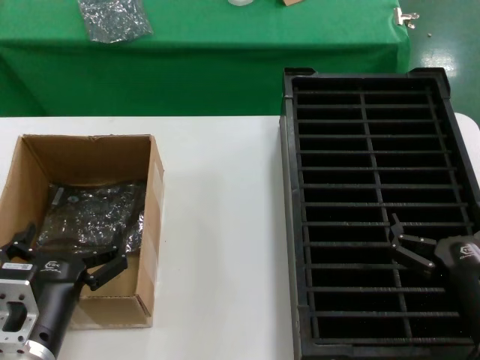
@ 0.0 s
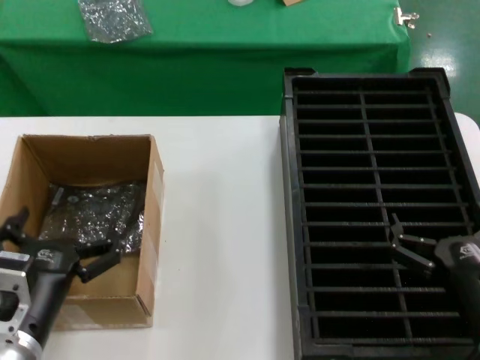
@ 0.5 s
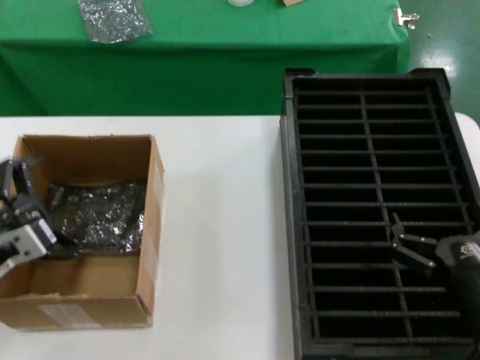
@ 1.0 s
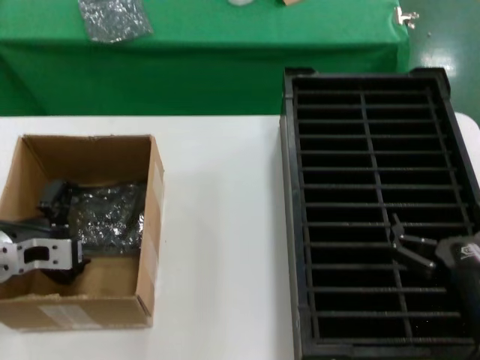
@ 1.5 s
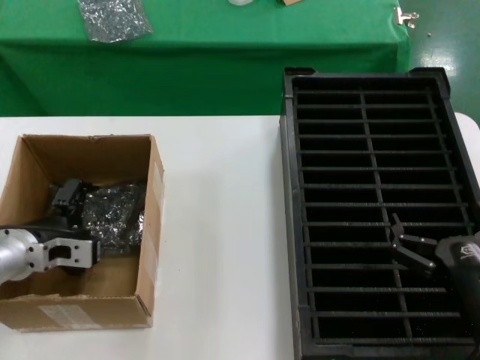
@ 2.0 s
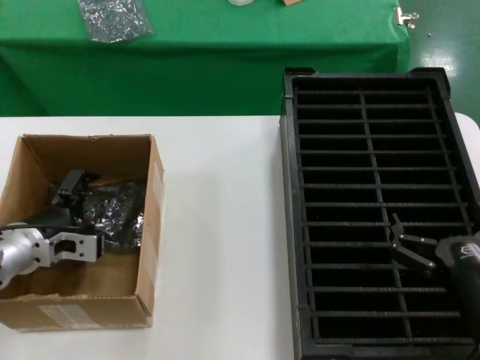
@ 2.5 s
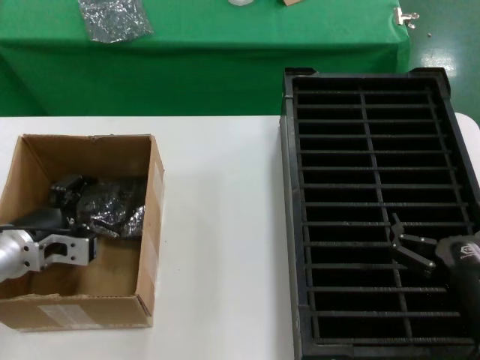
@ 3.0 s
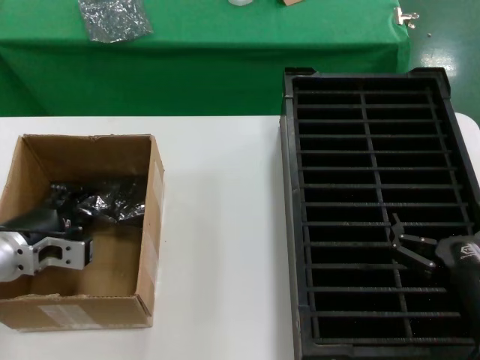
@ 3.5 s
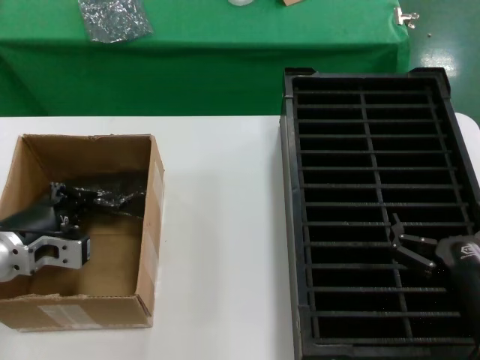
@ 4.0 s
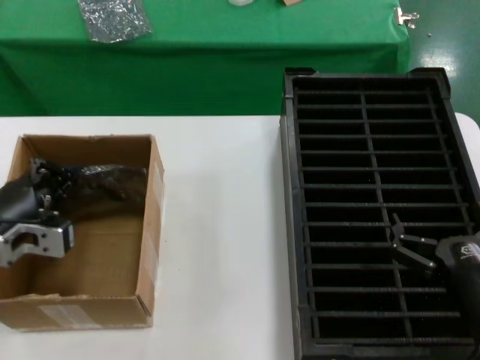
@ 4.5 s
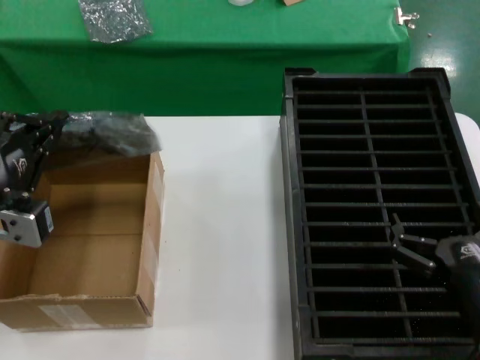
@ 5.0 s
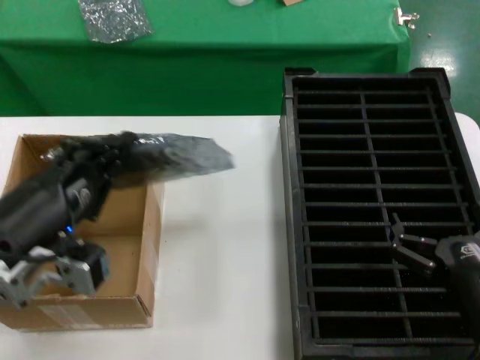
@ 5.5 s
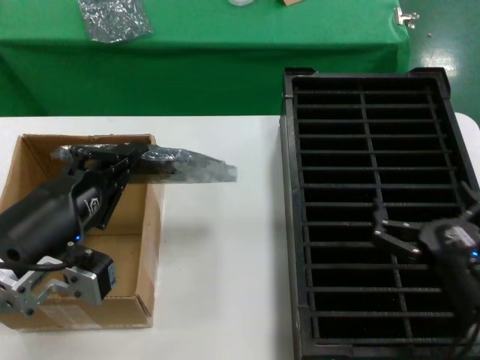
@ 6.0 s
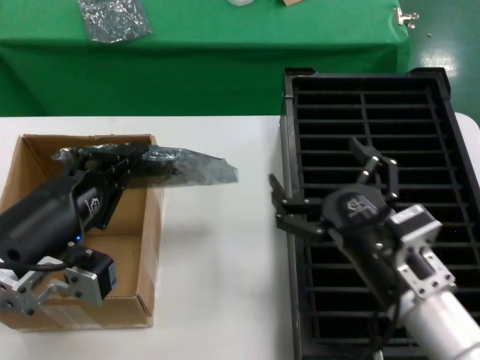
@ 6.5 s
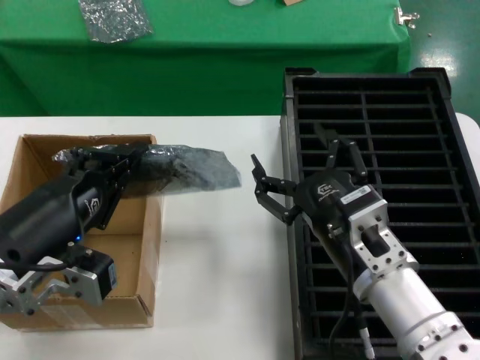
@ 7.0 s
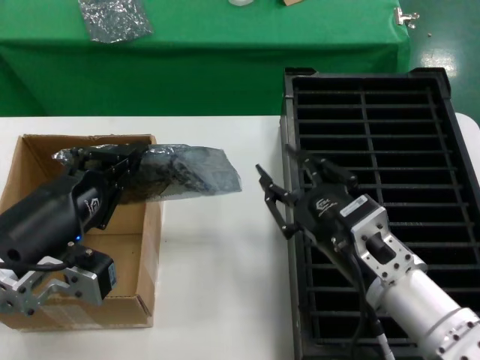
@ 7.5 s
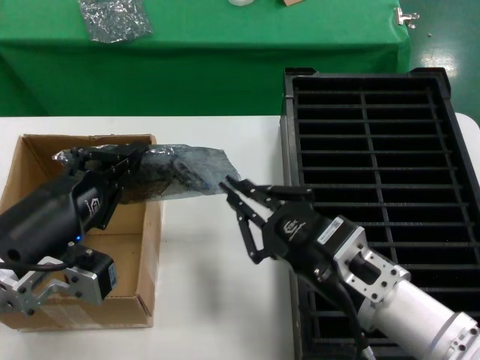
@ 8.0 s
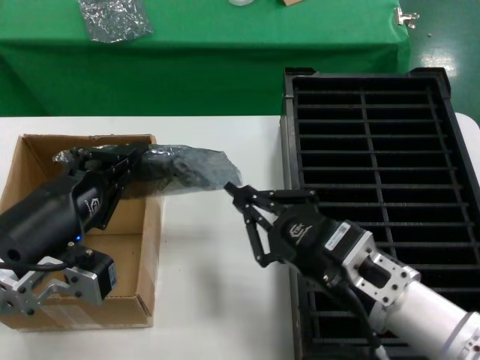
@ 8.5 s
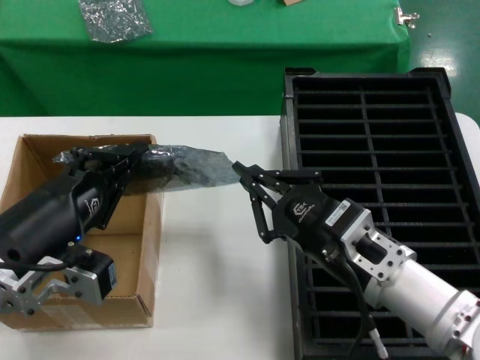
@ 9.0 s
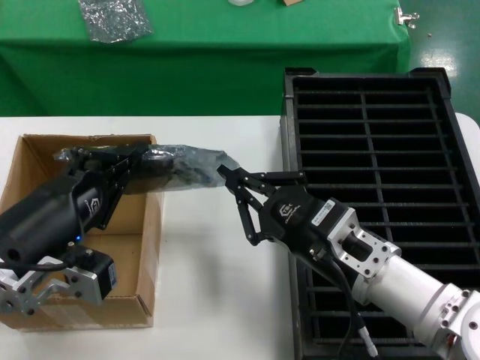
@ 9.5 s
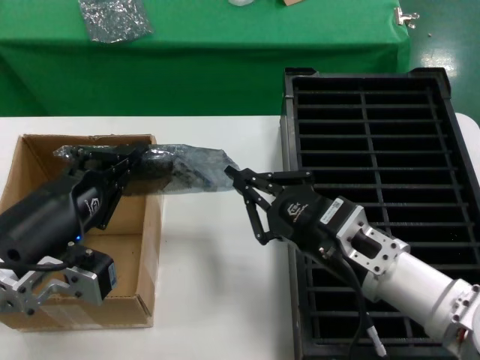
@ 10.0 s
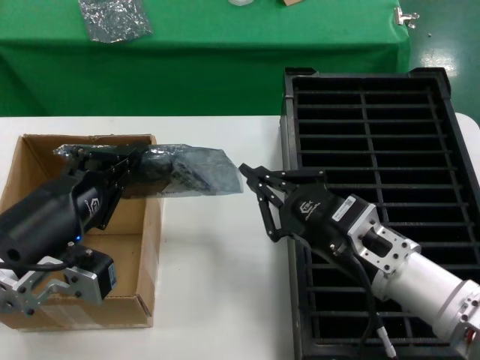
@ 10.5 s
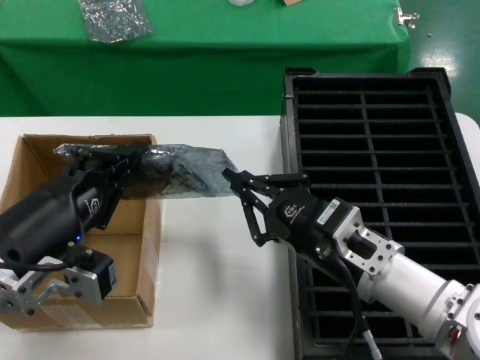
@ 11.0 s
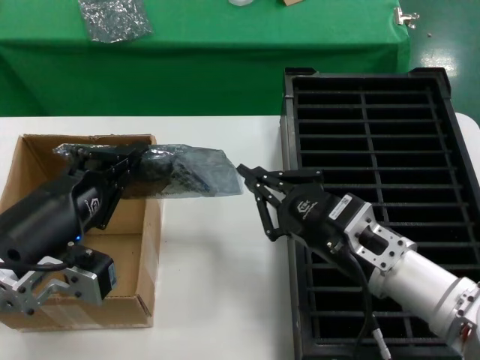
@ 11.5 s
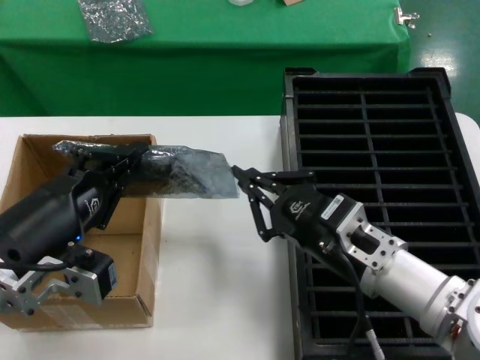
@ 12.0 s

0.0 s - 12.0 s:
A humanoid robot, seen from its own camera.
Task of the whole recording: take out graphics card from box remove packaging put into black container.
Step, 0.0 s - 4.0 s: Grasp the bag.
Step, 4.5 s - 6.0 s: Lift the bag.
0.0 s - 2.0 s: The left hand moves forward and to the left, some 20 cm.
2.0 s - 4.0 s: There are only small adjustments of the hands.
4.0 s - 6.0 s: The left hand heads backward, upward and to the right, covering roughly 20 cm.
6.0 s - 8.0 s: The right hand shifts about 10 cm to the left and upward.
8.0 s - 12.0 s: The hands make only small movements.

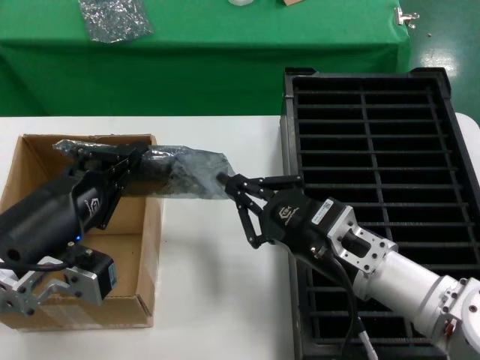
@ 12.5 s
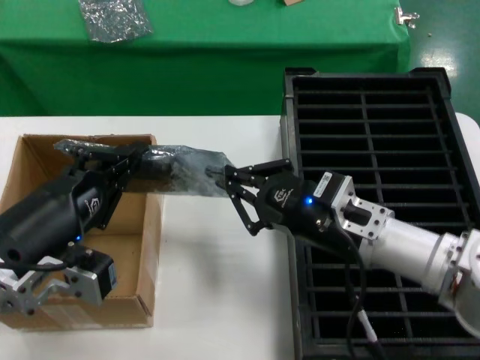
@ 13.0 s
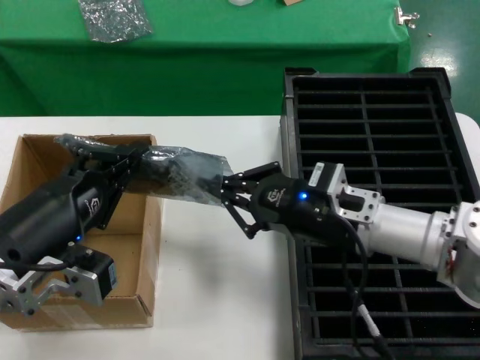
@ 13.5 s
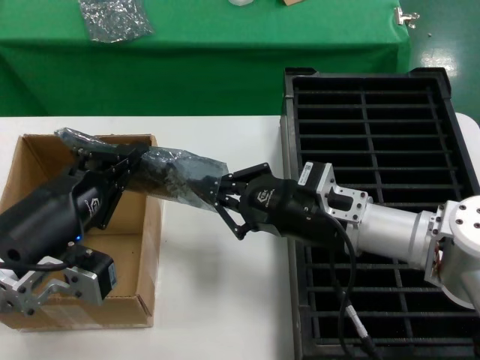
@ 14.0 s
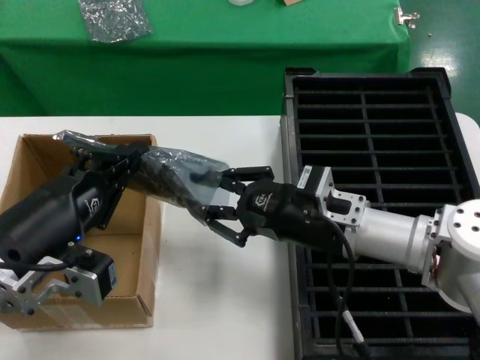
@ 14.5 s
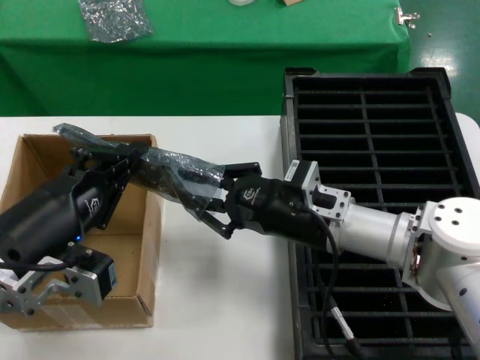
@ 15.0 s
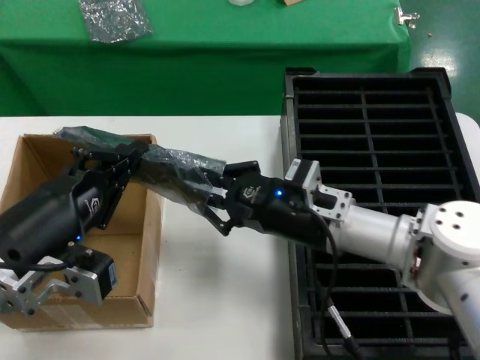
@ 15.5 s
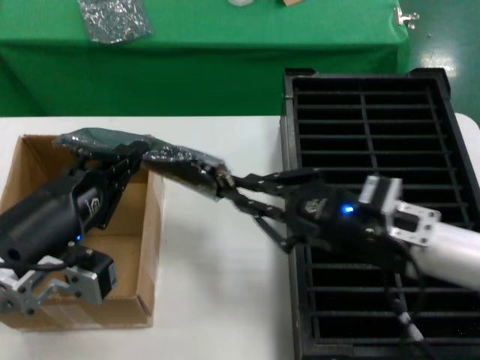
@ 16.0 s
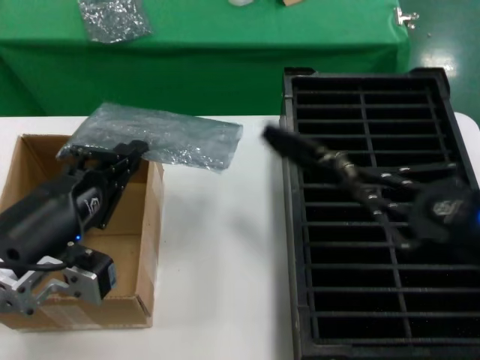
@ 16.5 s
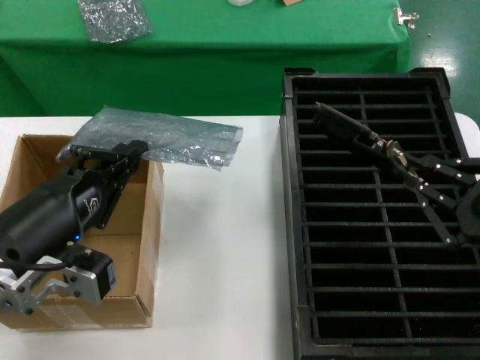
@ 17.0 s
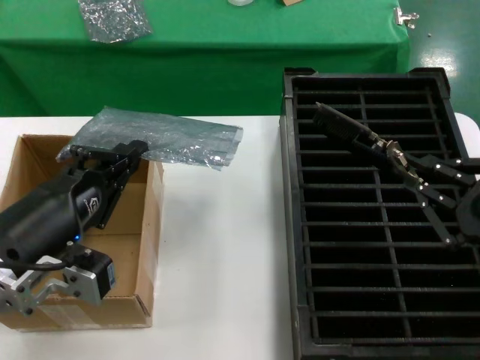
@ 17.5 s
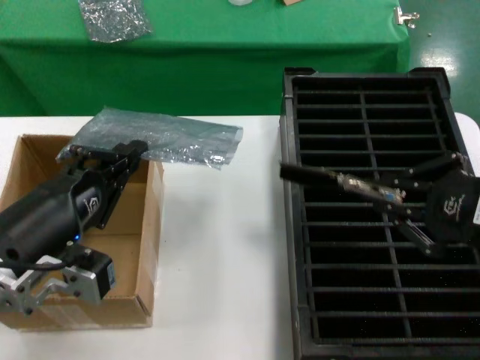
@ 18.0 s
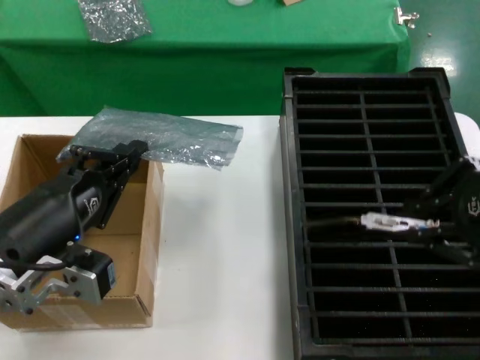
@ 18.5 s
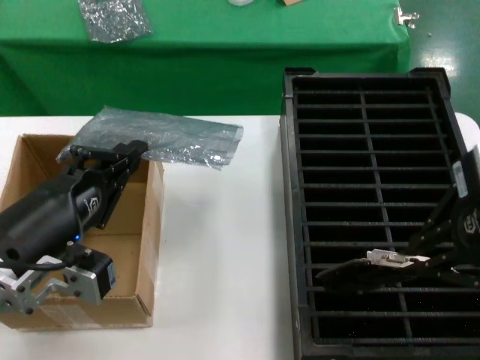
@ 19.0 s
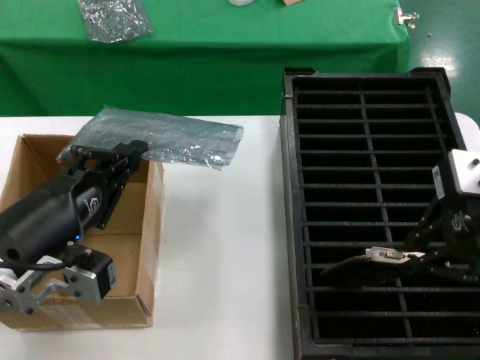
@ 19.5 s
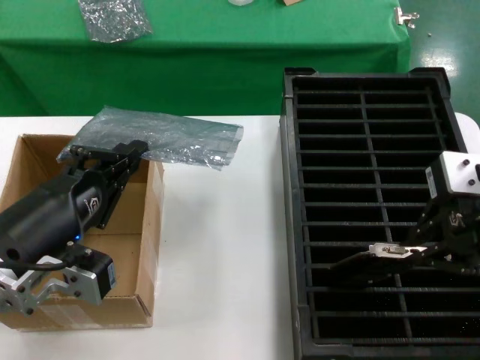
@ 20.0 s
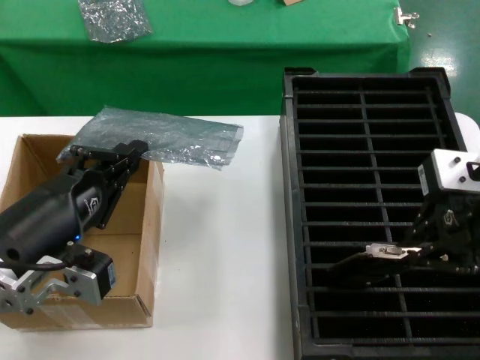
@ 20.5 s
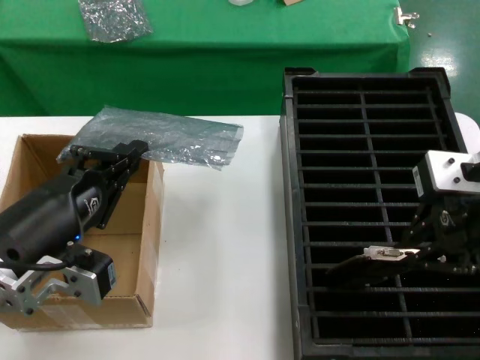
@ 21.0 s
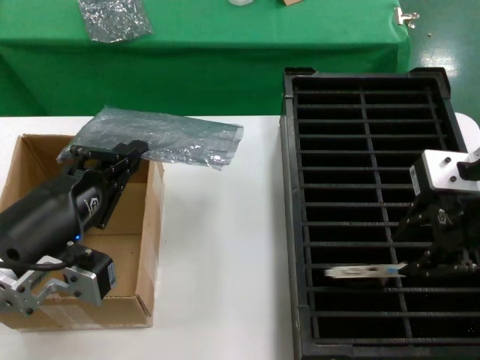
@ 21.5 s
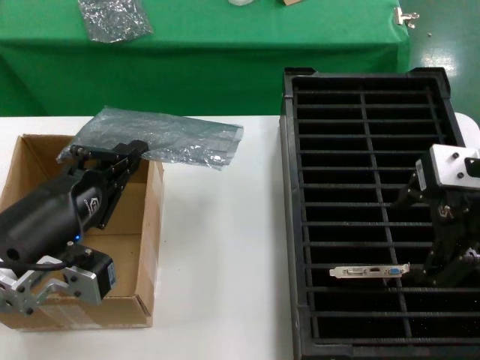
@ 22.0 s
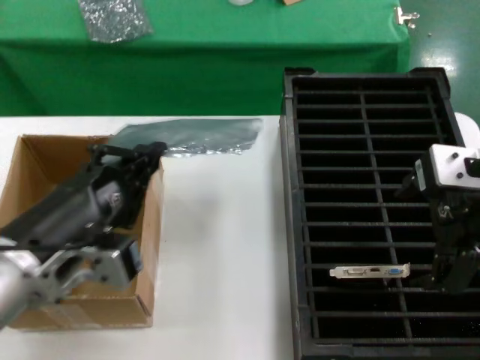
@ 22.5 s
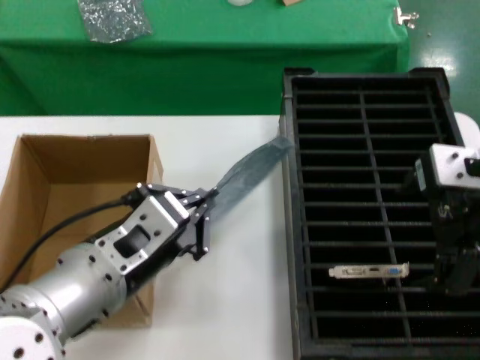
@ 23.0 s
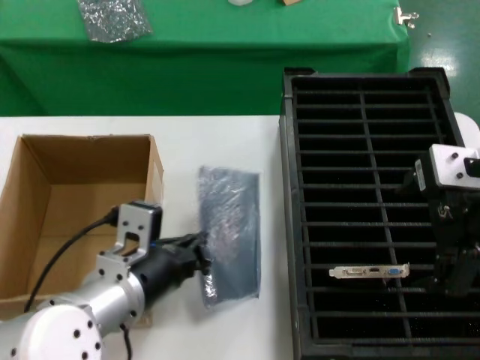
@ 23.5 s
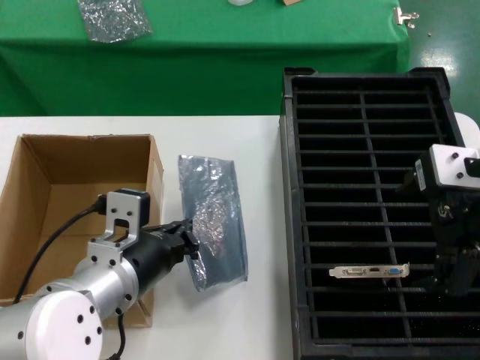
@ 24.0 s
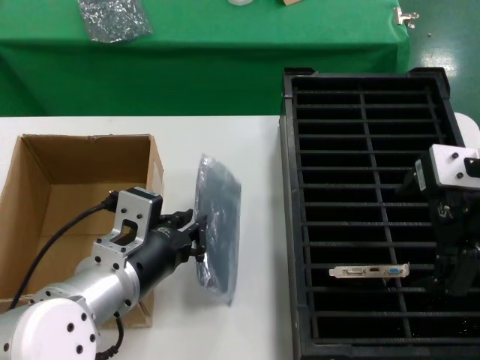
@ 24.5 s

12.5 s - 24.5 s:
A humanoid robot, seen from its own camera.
Task of the whole recording: take out graphics card from box remove packaging put into black container.
Step, 12.5 s - 16.0 s: Take out the hard disk of the bag.
Step, 16.5 s - 21.0 s: Place the hard disk in the hard disk enclosure.
12.5 s - 14.5 s: The right hand shifts some 5 cm forward.
14.5 s - 16.5 s: The right hand travels backward, to the right and upward by roughly 20 cm.
16.5 s - 18.5 s: The right hand moves upward, roughly 15 cm.
18.5 s - 20.5 s: The right hand is displaced forward by approximately 5 cm.
20.5 s - 22.5 s: The hands move only a little.
22.5 s - 24.5 s: The left hand goes approximately 10 cm to the right and forward.

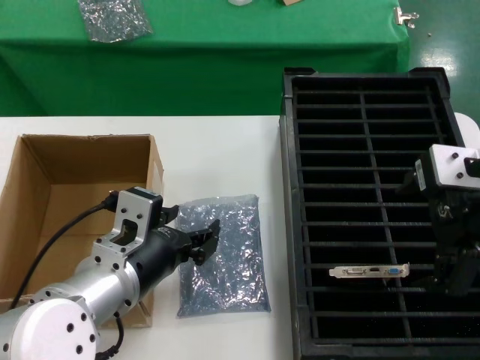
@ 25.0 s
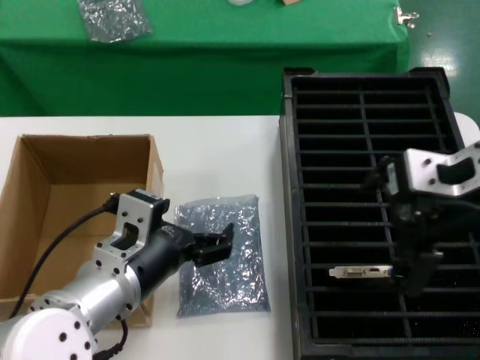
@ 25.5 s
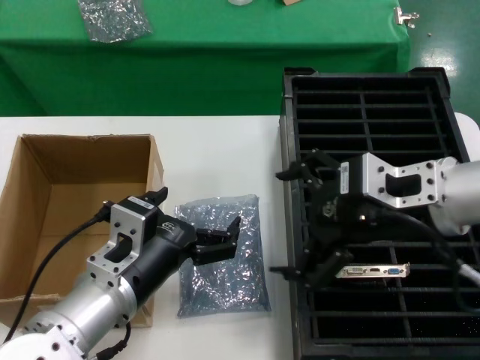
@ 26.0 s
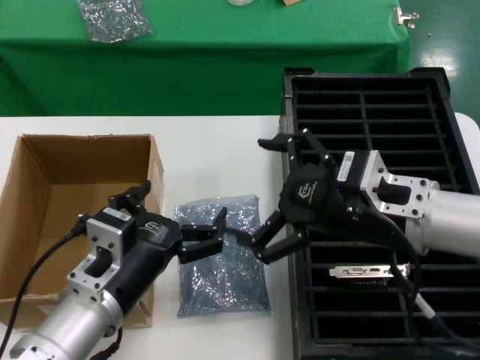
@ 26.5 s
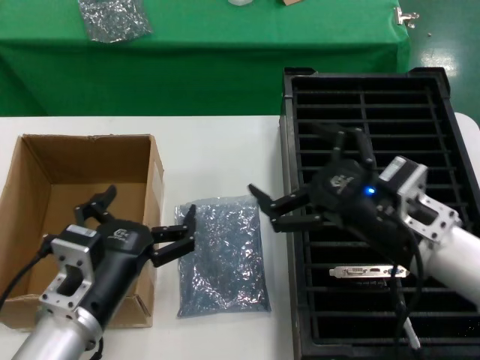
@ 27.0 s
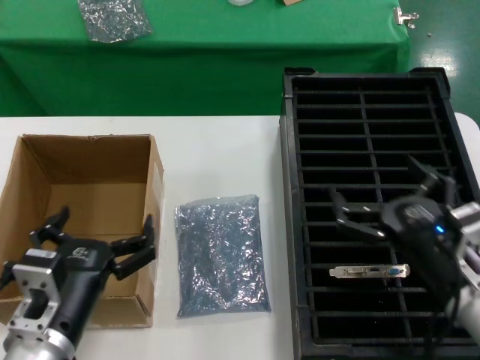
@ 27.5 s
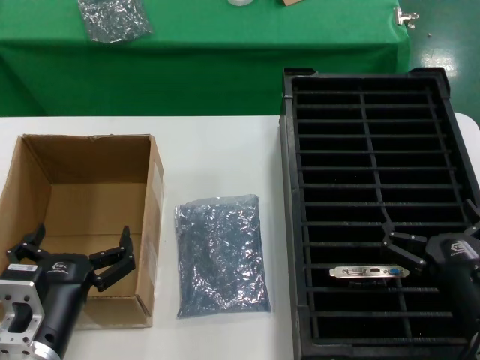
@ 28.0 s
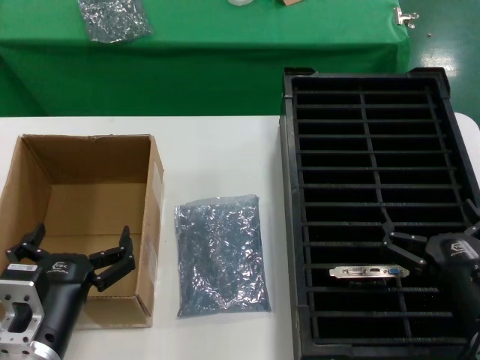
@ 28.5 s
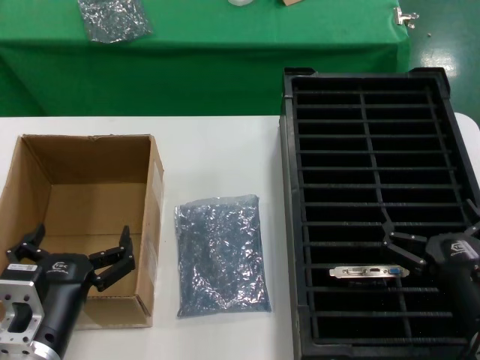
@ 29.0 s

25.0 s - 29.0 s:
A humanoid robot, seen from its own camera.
Task of the whole recording: take out graphics card from box remove packaging put into black container.
25.0 s - 27.0 s: The right hand is displaced downward by roughly 20 cm, while the left hand shifts approximately 5 cm downward.
27.0 s - 29.0 s: The left hand moves approximately 5 cm, while the right hand goes some 15 cm downward, backward and to the right.
